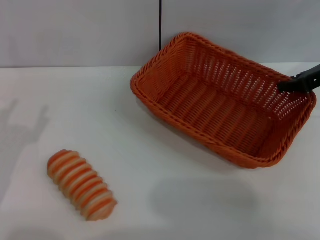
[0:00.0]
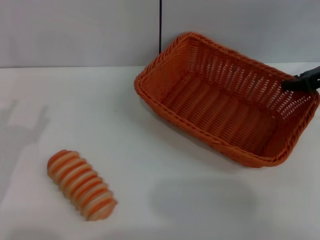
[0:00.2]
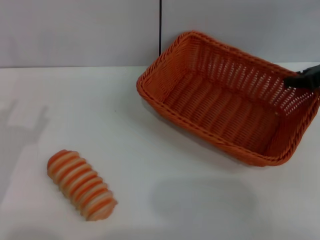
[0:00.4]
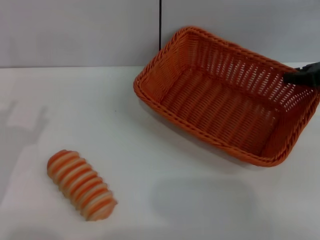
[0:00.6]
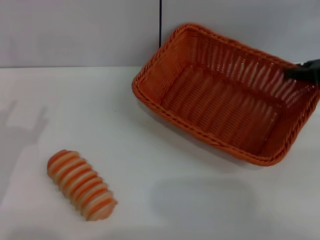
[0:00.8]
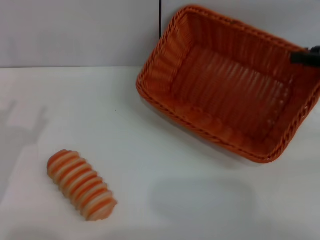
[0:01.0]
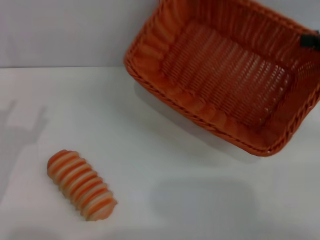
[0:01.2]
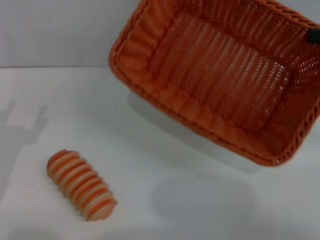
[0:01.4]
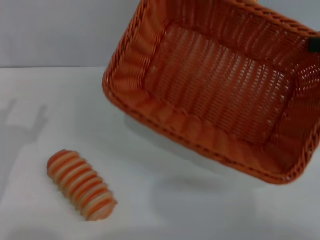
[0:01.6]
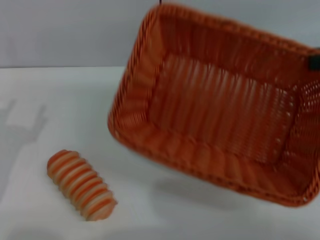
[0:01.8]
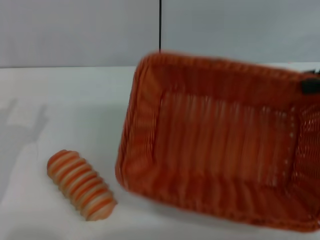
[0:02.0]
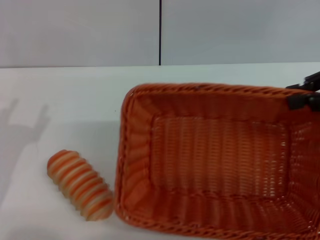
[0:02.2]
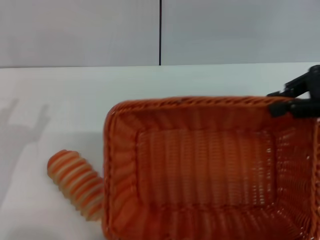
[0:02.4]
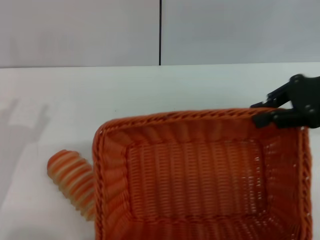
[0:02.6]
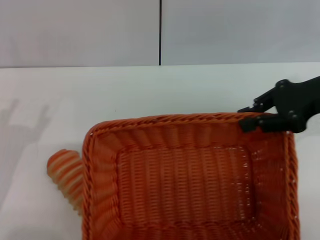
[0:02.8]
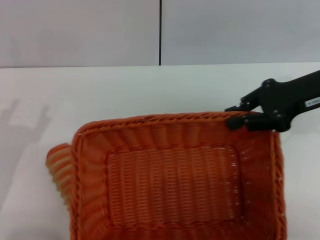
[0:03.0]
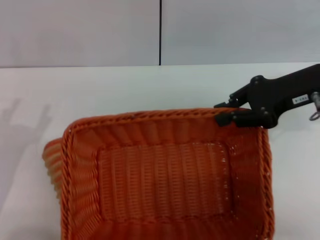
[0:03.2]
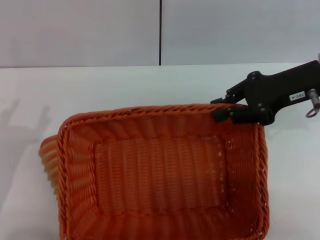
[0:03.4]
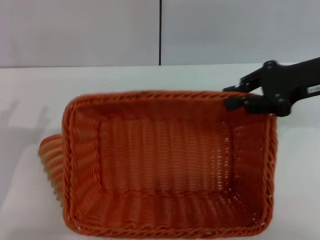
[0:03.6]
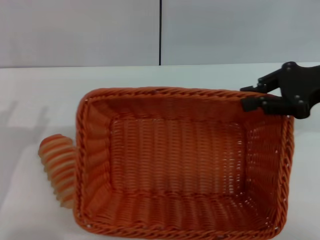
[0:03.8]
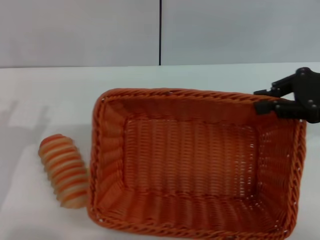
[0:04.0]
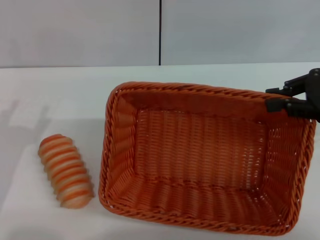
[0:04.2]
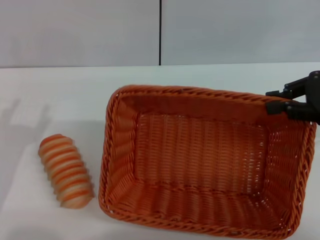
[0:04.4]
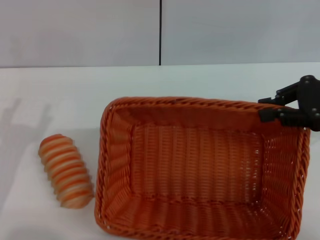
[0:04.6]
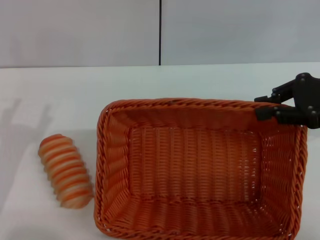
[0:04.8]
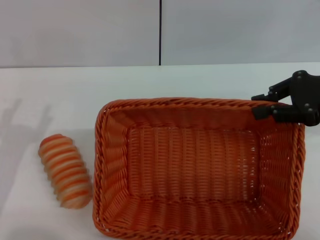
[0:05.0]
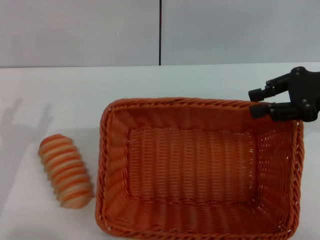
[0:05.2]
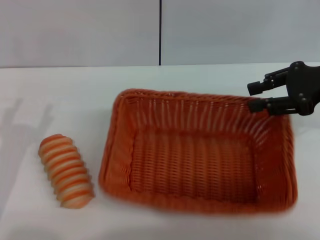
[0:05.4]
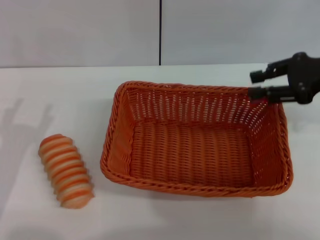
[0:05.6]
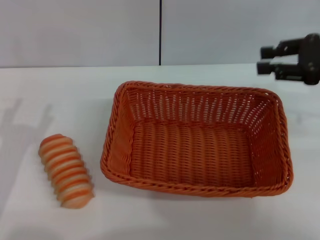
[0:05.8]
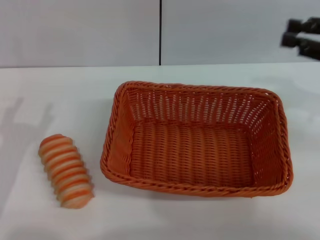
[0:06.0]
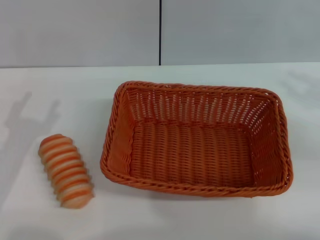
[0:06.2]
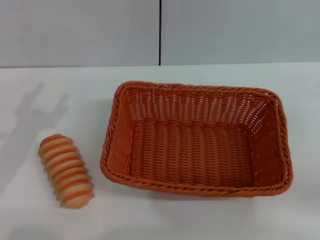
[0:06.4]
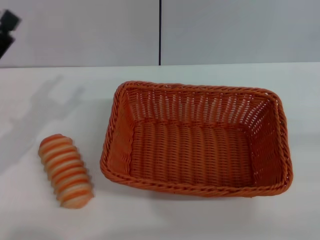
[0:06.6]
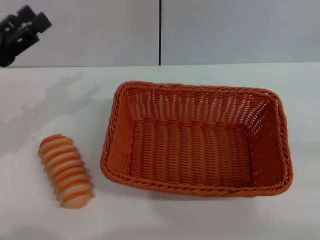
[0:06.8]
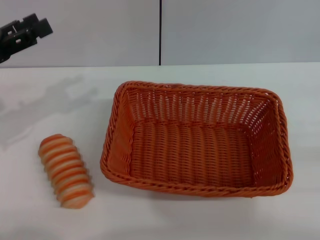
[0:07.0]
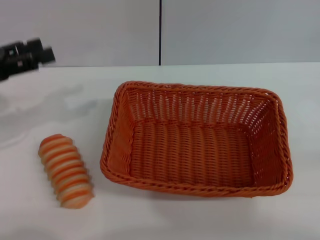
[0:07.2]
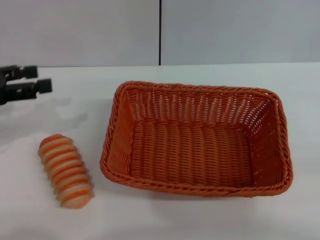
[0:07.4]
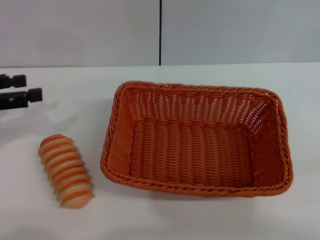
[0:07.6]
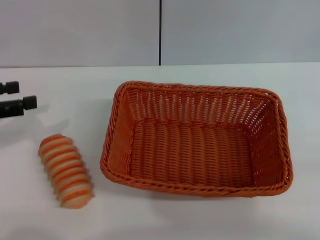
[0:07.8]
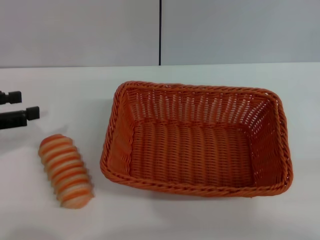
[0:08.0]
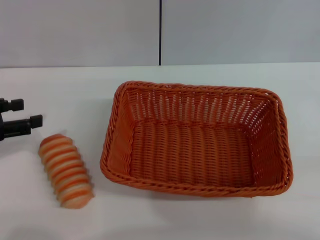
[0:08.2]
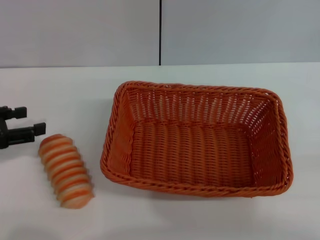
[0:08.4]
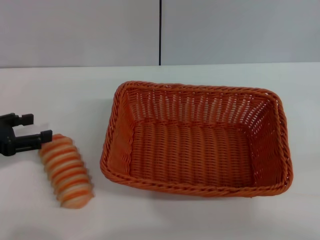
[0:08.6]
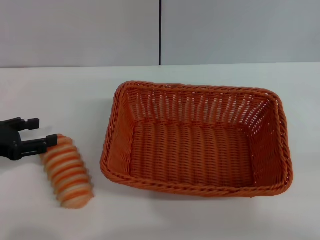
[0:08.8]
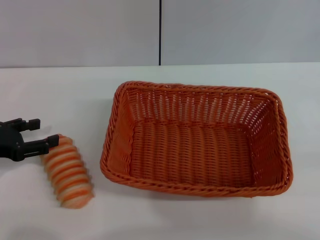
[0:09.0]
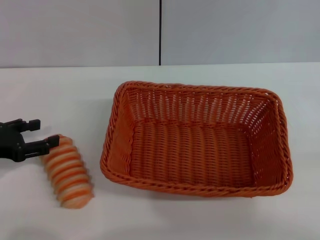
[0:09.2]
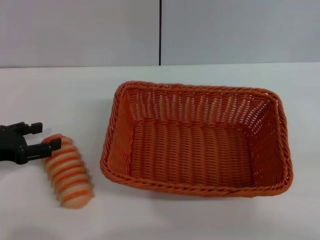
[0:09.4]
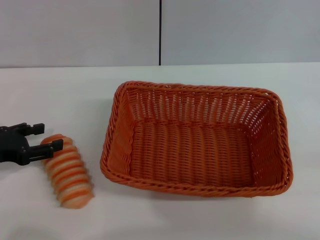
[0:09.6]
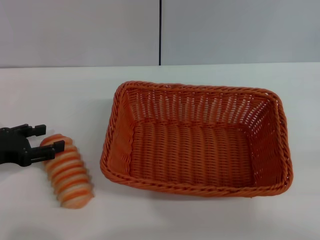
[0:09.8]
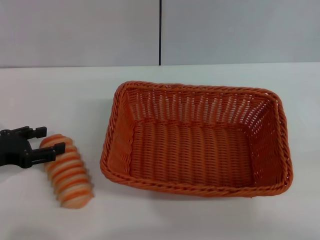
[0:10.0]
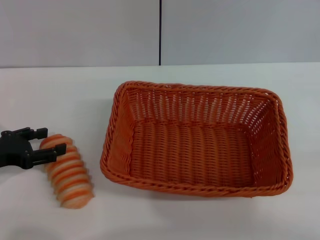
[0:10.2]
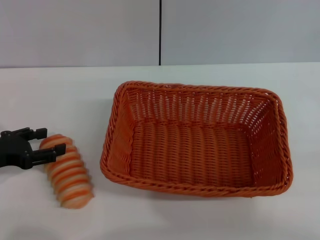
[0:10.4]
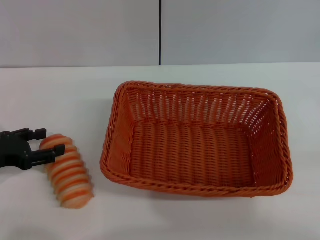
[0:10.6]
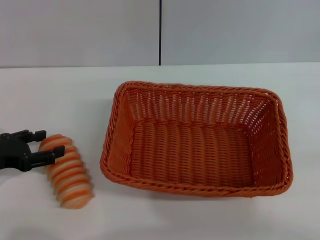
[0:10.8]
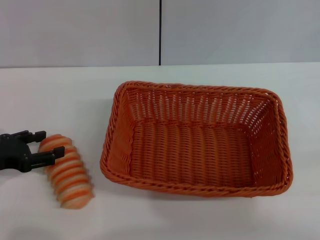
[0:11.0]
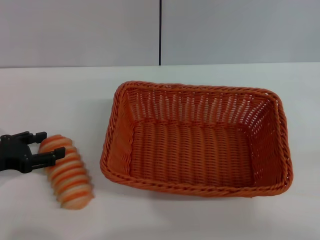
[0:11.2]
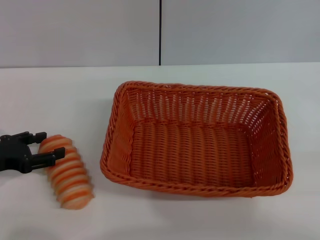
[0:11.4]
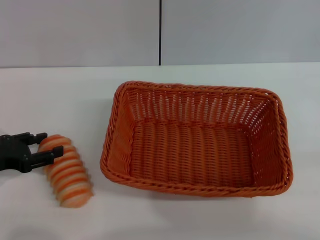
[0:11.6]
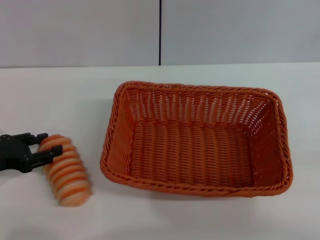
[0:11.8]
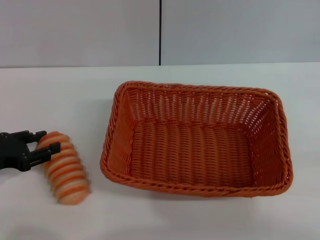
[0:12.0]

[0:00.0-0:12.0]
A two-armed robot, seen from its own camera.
Step, 0:01.6 to 0:05.8: Place the light basket in the center of view with the right gripper.
0:00.0 to 0:01.6: The right gripper moves backward, to the right and upward, roughly 10 cm.
0:01.6 to 0:03.0: The right gripper is displaced to the left by approximately 10 cm.
0:03.0 to 0:04.4: The right gripper goes about 5 cm to the right.
0:04.4 to 0:06.0: The right gripper opens its fingers.
0:06.0 to 0:07.6: The left gripper is displaced forward, upward and to the left by about 15 cm. Meanwhile the right gripper goes roughly 25 cm backward, downward and to the right.
0:07.6 to 0:09.0: The left gripper travels downward by approximately 5 cm.
0:09.0 to 0:10.4: The grippers stay close to where they were, moving slightly.
0:10.4 to 0:12.0: Both grippers stay put.

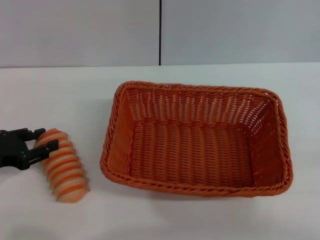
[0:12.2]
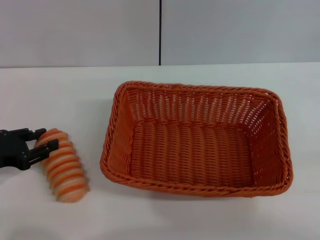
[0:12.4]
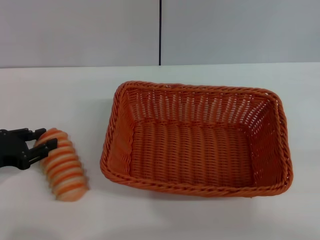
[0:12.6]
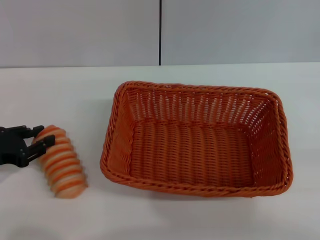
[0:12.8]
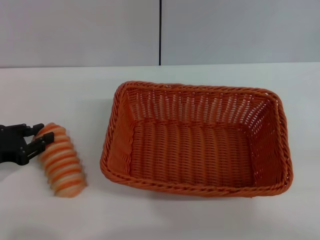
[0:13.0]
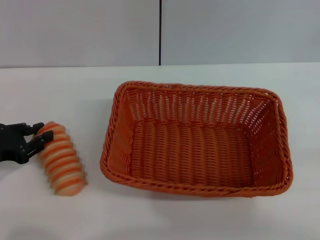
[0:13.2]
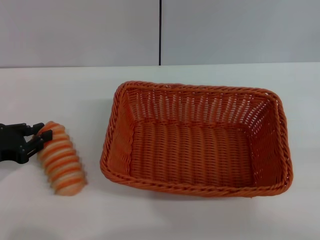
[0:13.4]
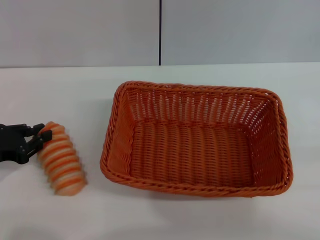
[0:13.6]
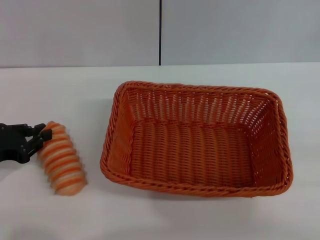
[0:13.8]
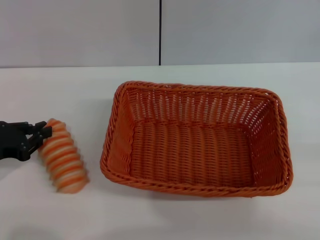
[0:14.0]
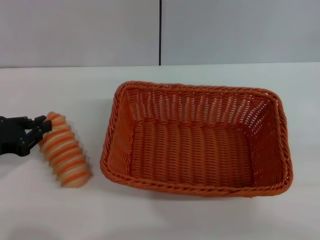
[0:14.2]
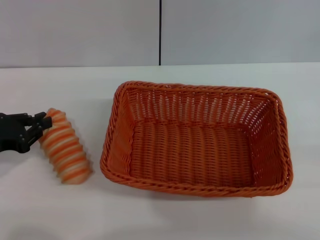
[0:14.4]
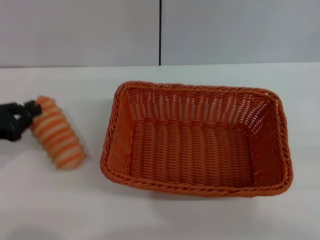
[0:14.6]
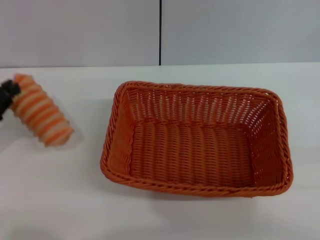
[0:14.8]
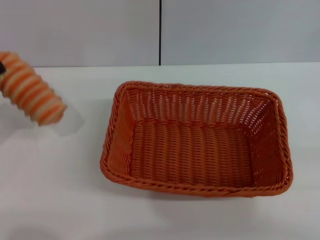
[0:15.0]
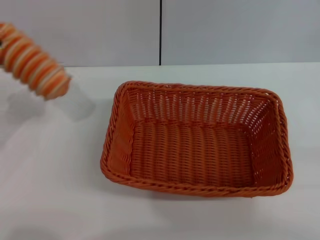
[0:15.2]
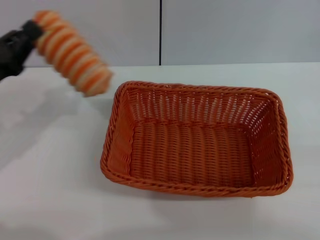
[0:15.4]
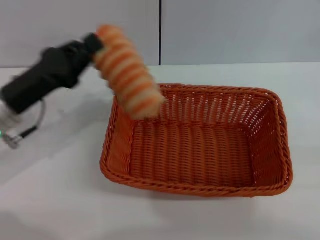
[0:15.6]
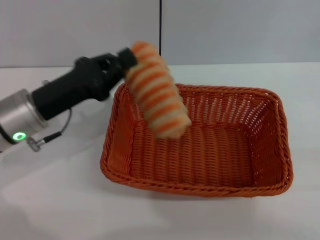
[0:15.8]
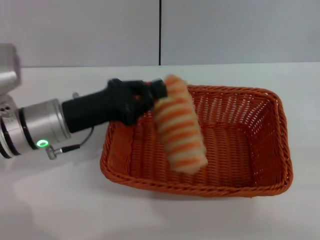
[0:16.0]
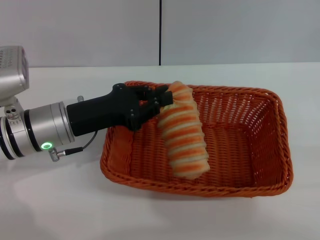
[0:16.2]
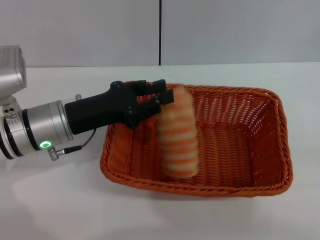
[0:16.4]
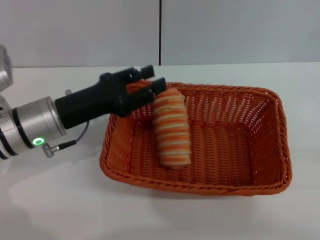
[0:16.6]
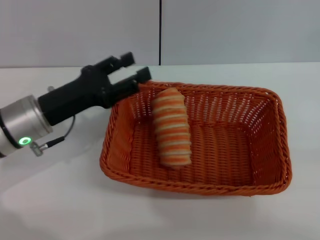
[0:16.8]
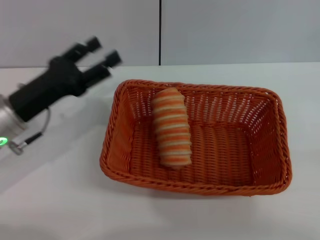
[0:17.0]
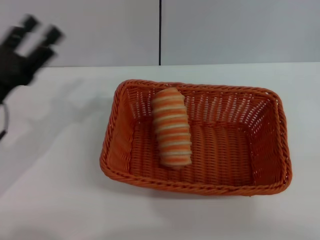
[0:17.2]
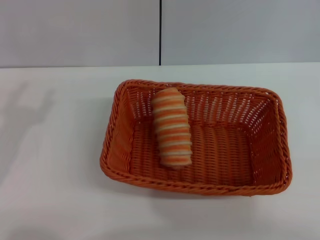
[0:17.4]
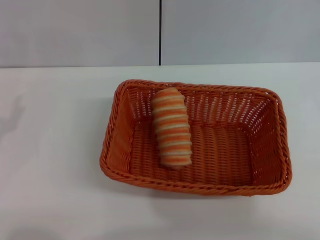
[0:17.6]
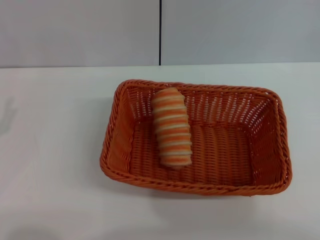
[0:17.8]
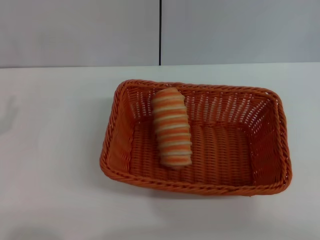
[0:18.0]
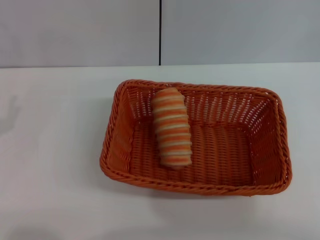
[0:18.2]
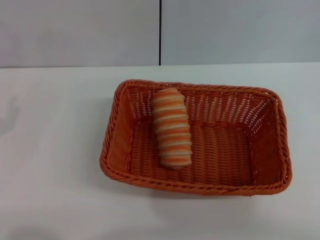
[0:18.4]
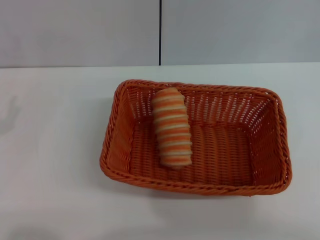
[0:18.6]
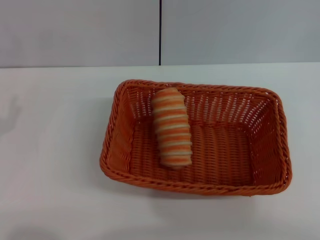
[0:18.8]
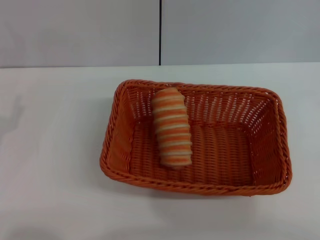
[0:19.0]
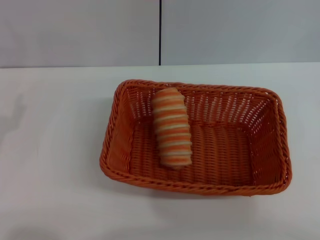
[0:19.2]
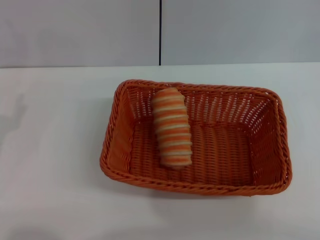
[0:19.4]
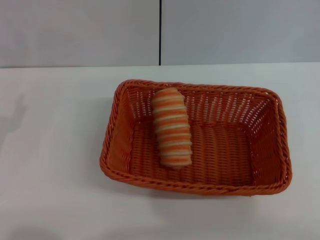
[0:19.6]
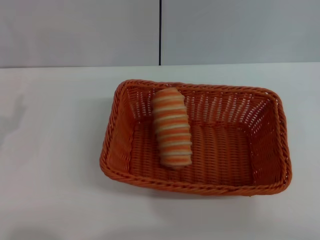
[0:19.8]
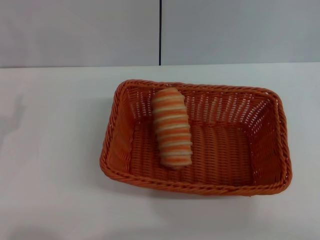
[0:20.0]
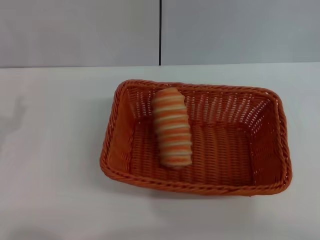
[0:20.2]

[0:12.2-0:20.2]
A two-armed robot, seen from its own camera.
Step, 0:12.2 to 0:15.0: Pick up the long bread with the left gripper.
Step, 0:15.2 to 0:16.8: Place the long bread into the light basket with the left gripper.
0:12.2 to 0:13.8: The left gripper closes up.
0:13.8 to 0:15.4: The left gripper shifts by some 5 cm.
0:15.4 to 0:17.0: The left gripper shifts approximately 5 cm to the right, and opens up.
0:17.0 to 0:18.6: The left gripper goes some 10 cm backward and to the left.

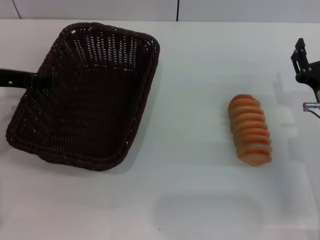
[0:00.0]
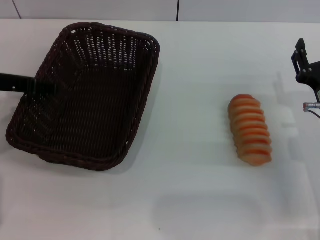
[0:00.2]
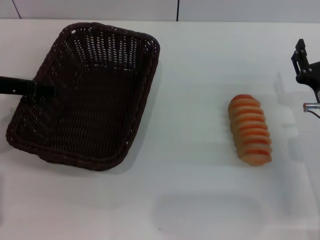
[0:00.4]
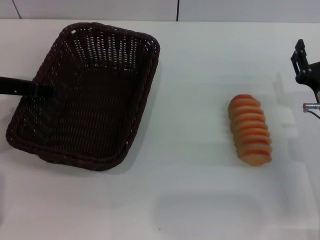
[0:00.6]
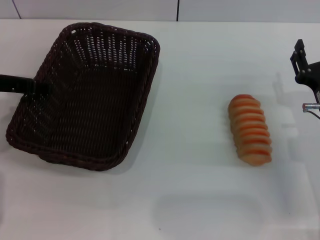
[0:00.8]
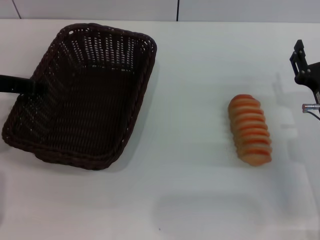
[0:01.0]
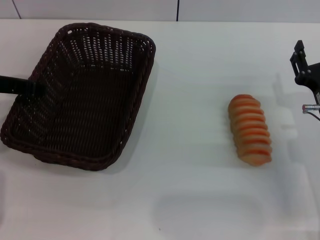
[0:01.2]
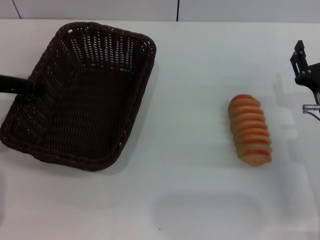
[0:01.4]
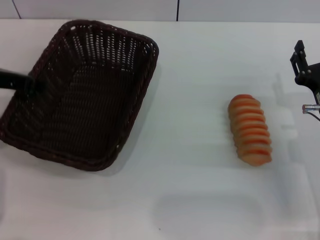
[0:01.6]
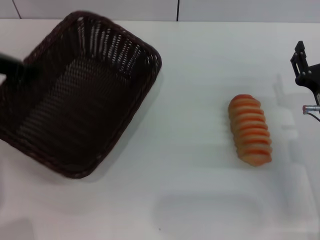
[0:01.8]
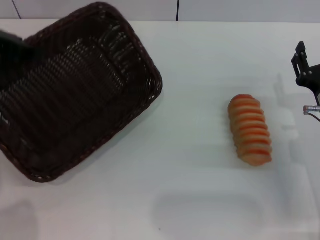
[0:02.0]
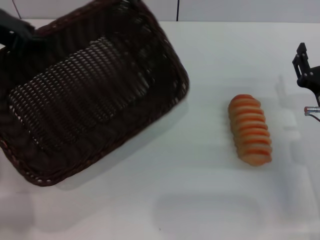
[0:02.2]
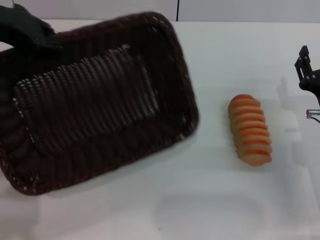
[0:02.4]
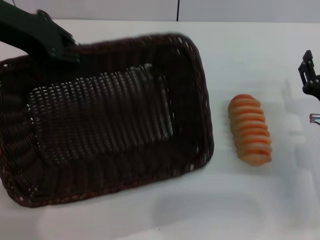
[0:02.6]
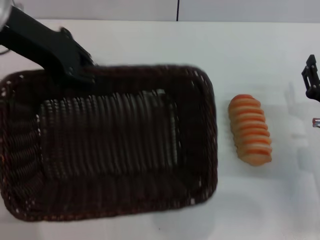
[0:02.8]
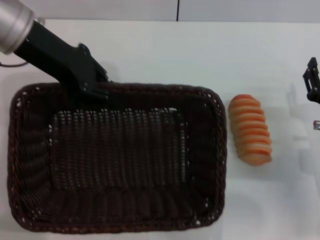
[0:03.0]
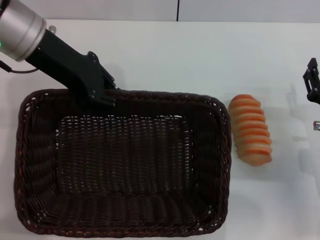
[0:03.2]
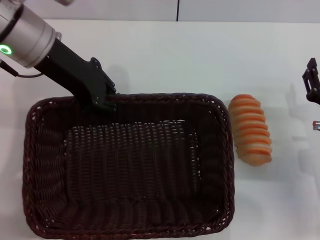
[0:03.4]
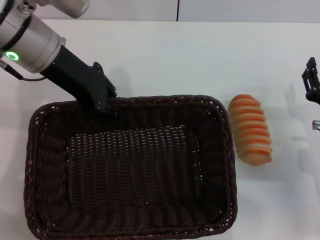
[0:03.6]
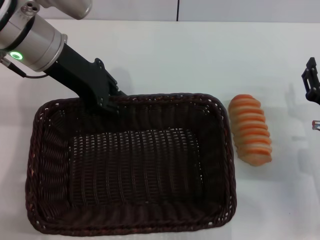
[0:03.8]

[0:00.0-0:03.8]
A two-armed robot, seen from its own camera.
Step, 0:00.0 to 0:02.0: Pick up the dark basket with the left gripper.
0:00.0 to 0:01.2: The left gripper closes its fingers.
0:01.2 to 0:02.6: The left gripper goes roughly 10 cm upward.
0:02.6 to 0:03.8: The left gripper moves to the right and downward, about 10 cm.
